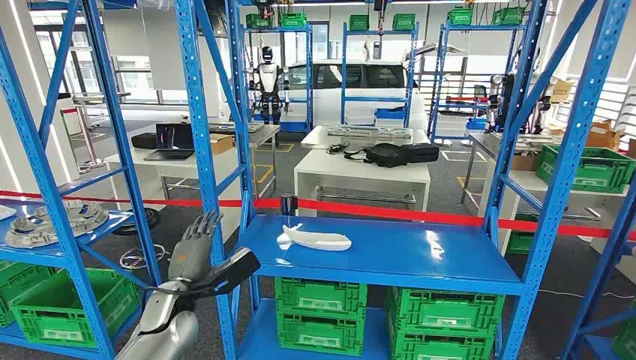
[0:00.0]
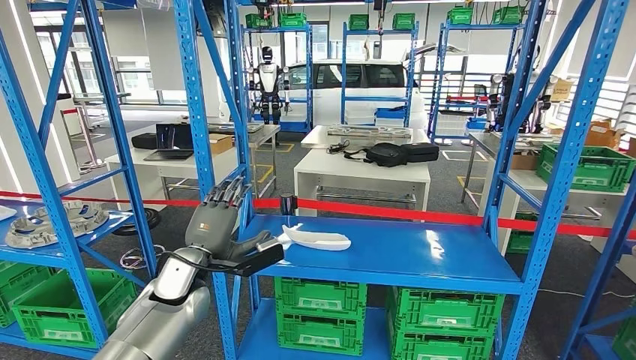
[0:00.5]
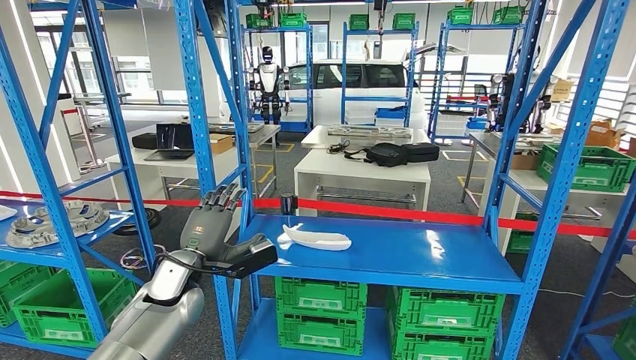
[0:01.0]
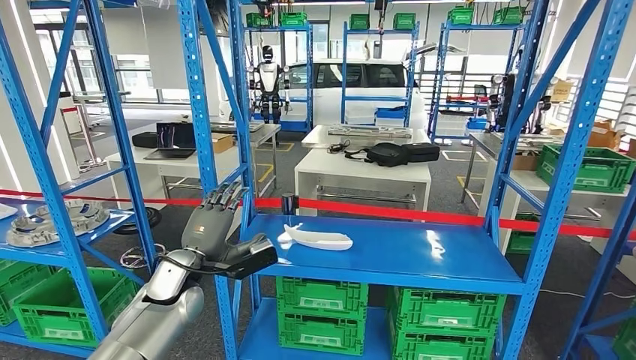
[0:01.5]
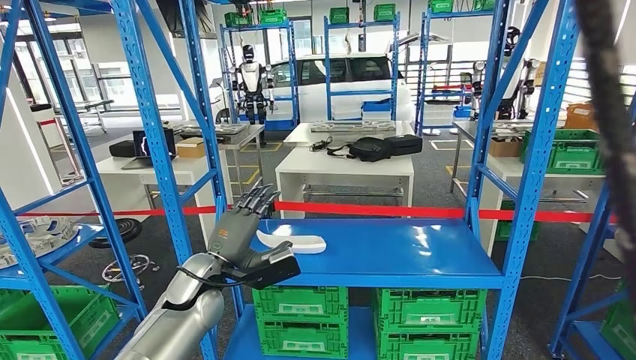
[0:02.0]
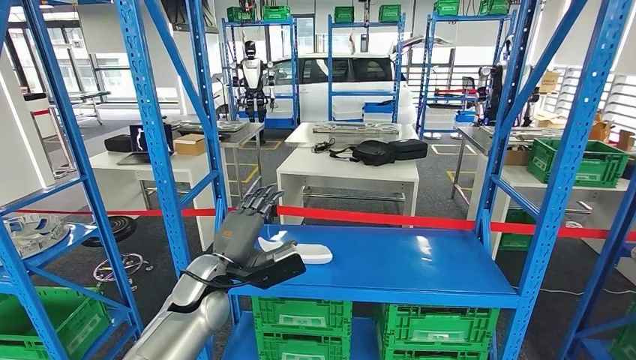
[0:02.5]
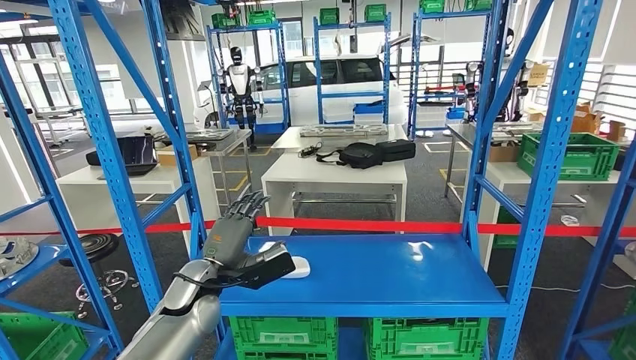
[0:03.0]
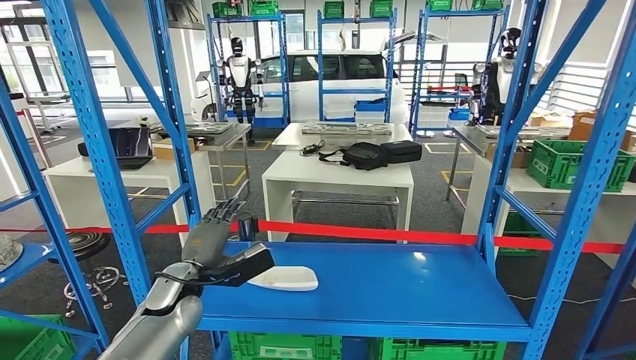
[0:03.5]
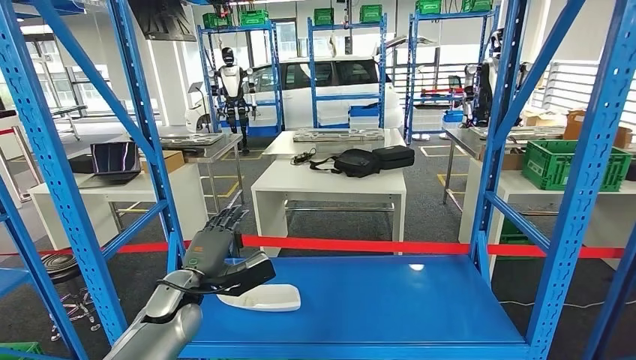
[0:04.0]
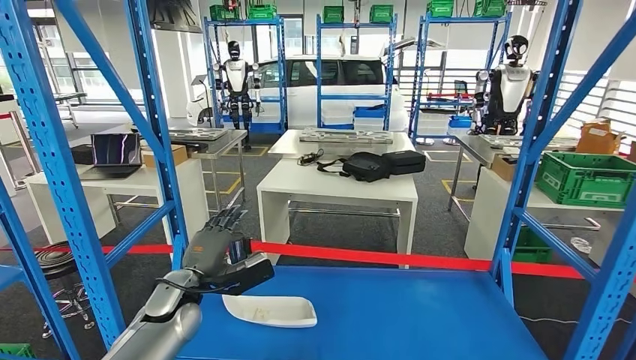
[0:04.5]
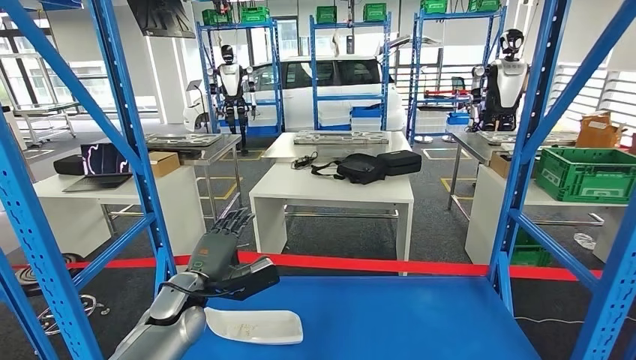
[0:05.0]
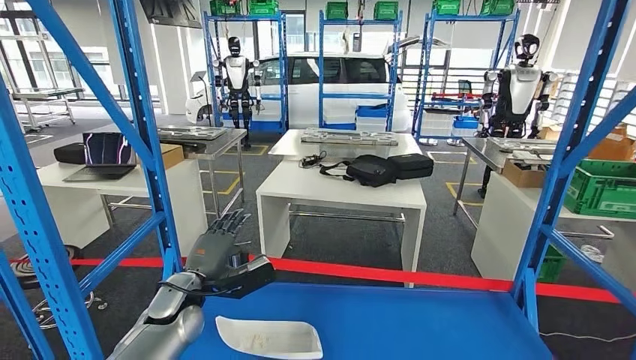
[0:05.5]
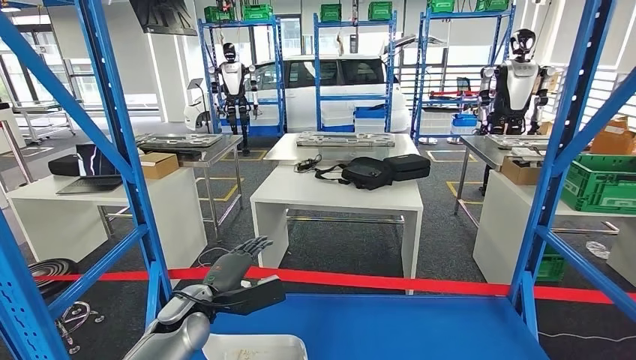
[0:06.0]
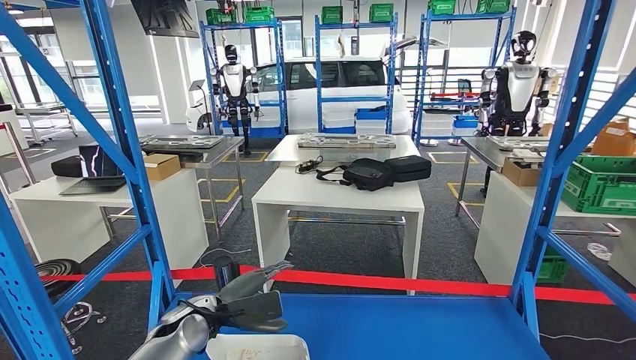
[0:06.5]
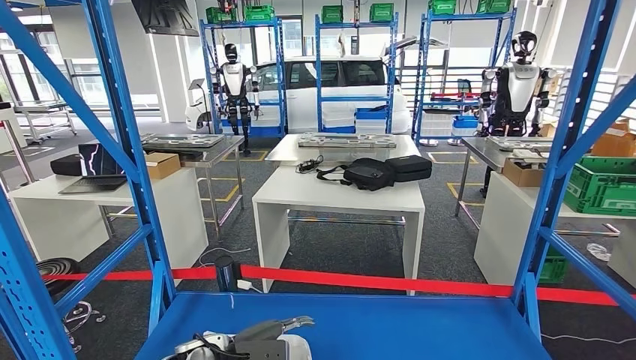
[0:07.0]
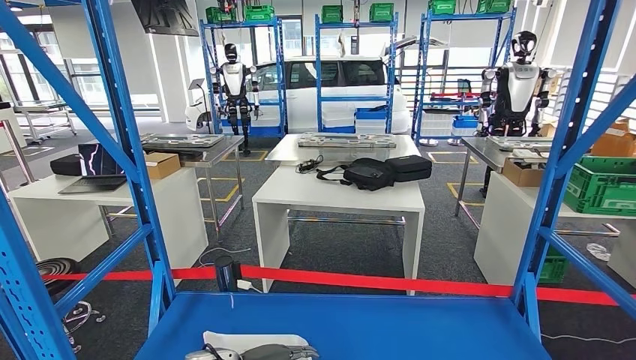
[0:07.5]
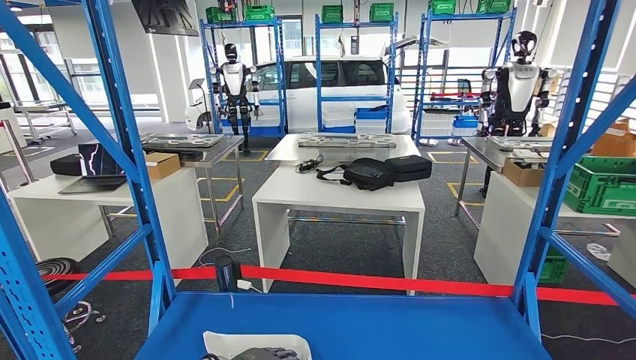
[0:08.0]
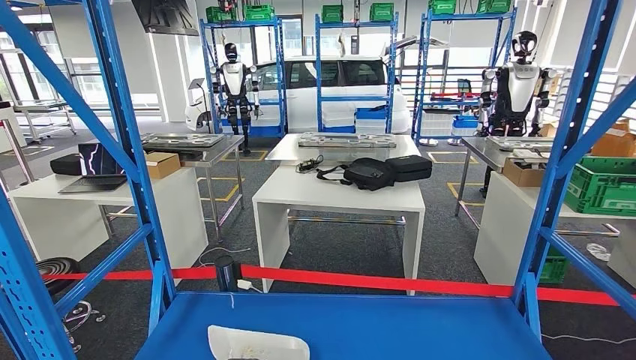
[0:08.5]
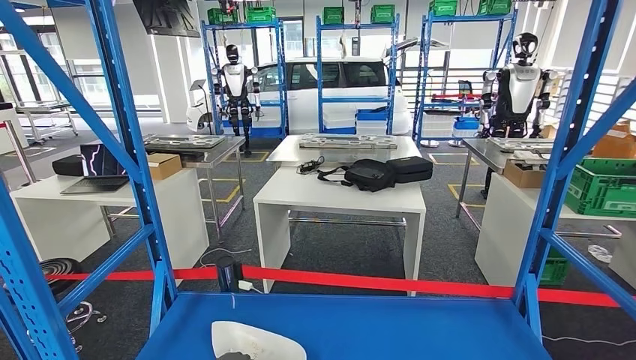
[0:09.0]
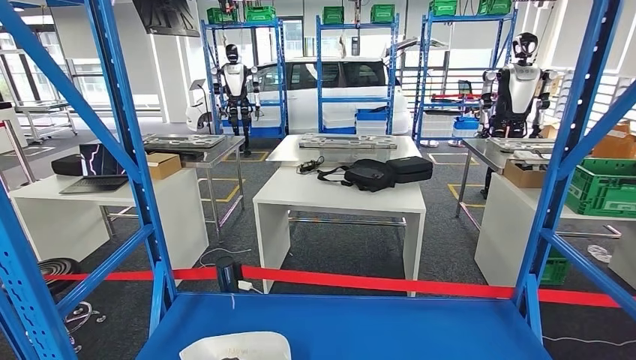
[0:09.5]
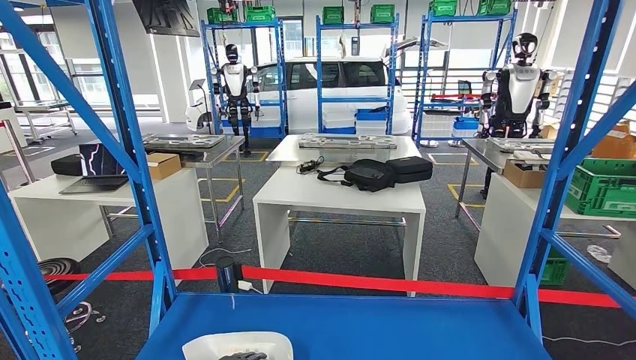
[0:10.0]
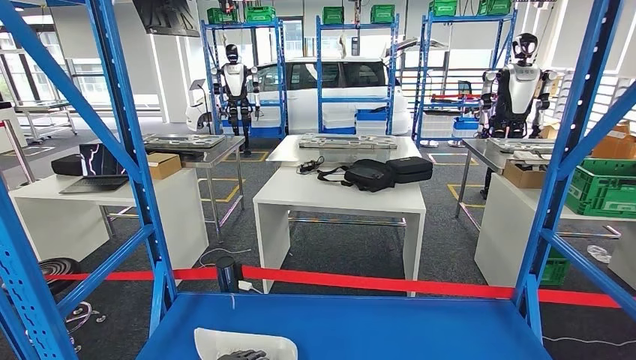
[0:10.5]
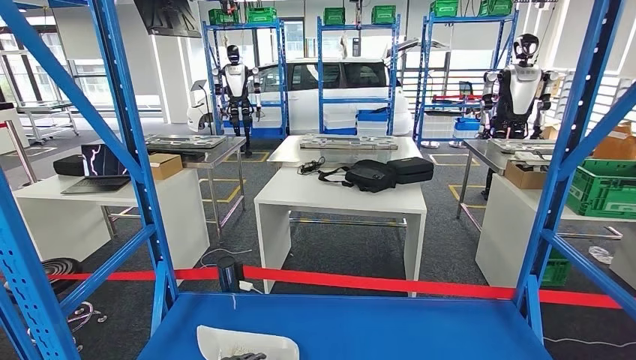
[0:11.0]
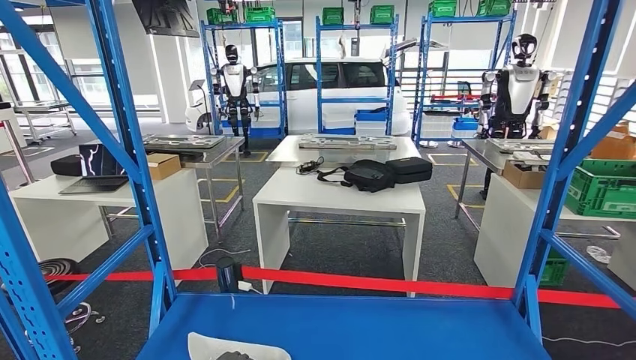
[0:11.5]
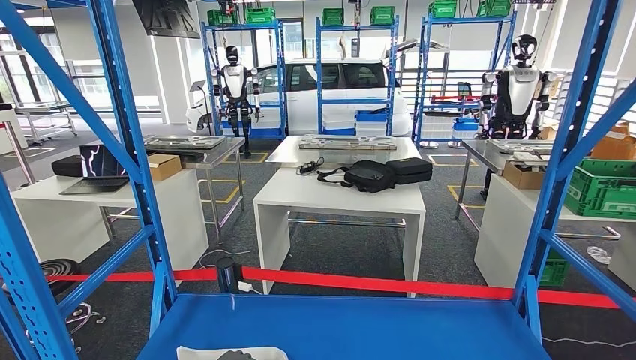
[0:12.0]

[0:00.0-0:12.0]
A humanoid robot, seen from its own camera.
0:08.0 to 0:10.0: The left hand moves about 5 cm.
0:10.0 to 0:12.0: There are only small adjustments of the hands.

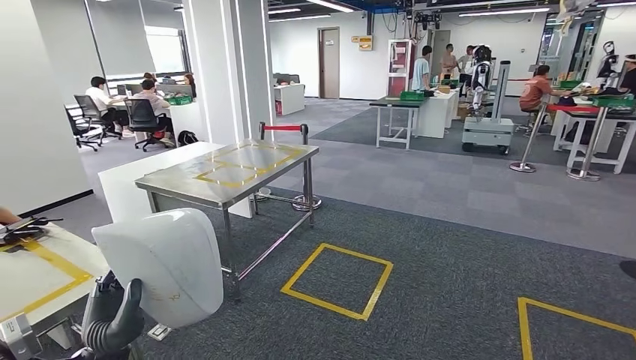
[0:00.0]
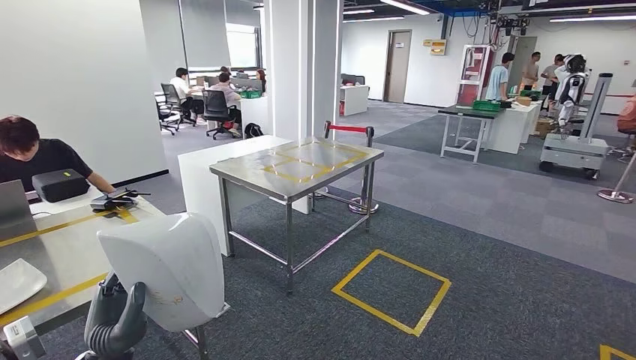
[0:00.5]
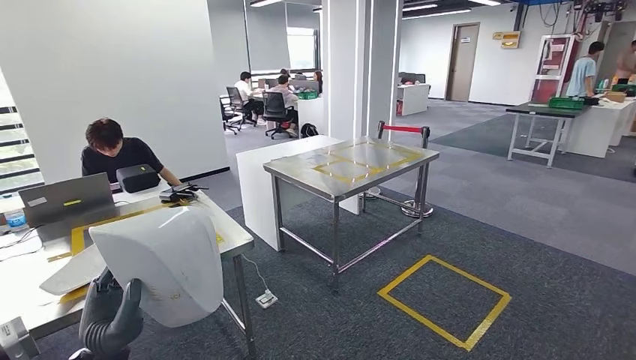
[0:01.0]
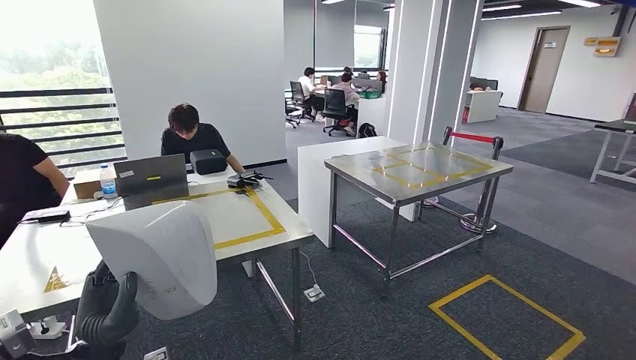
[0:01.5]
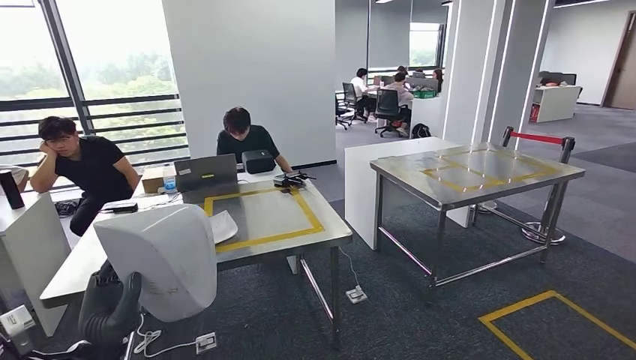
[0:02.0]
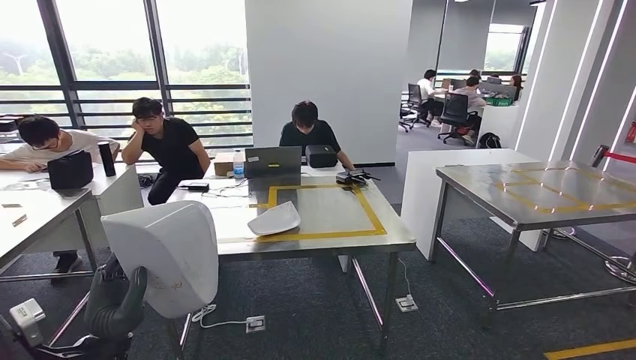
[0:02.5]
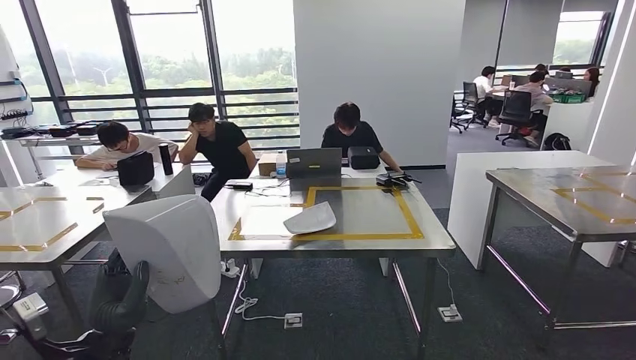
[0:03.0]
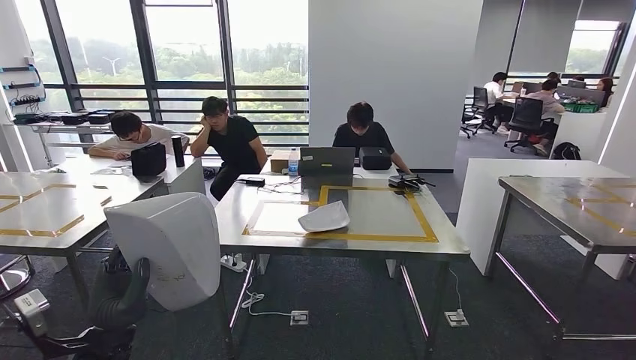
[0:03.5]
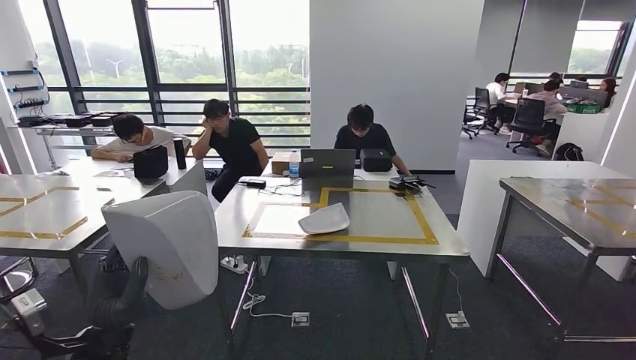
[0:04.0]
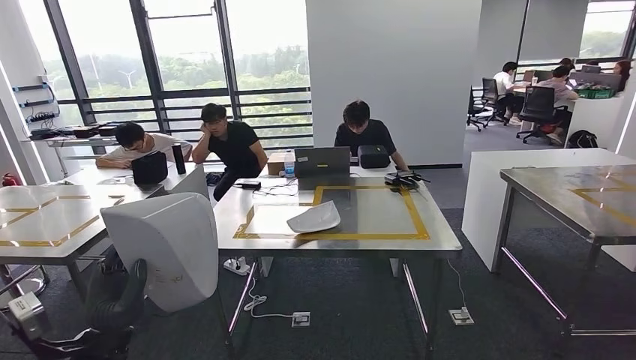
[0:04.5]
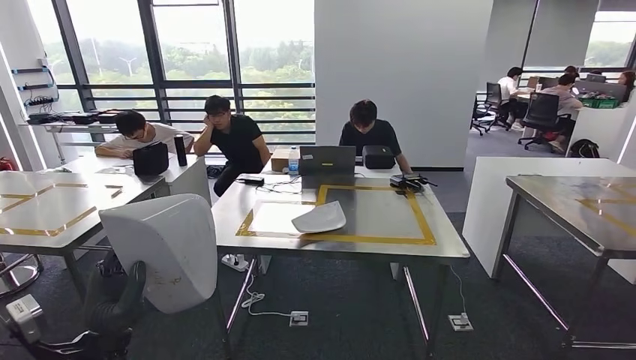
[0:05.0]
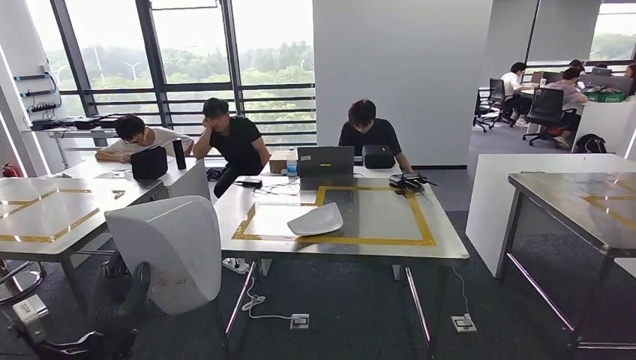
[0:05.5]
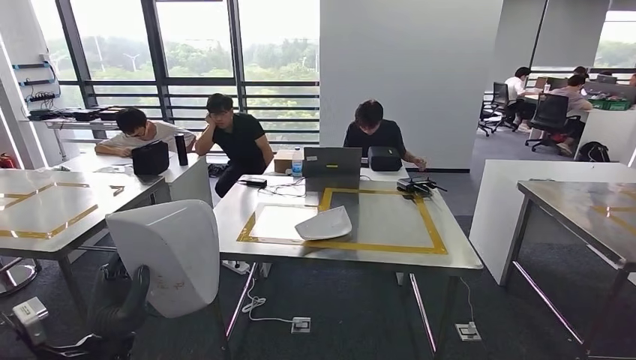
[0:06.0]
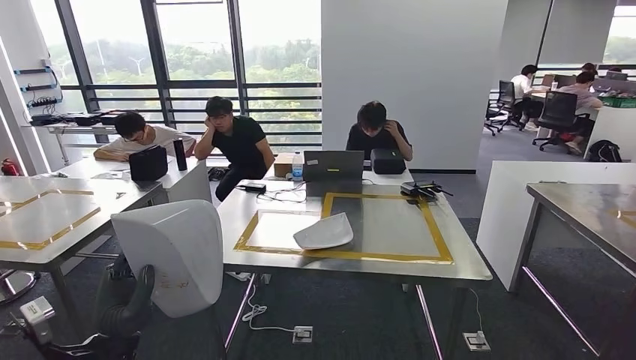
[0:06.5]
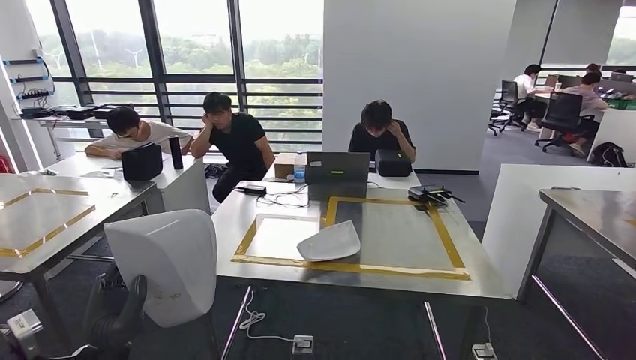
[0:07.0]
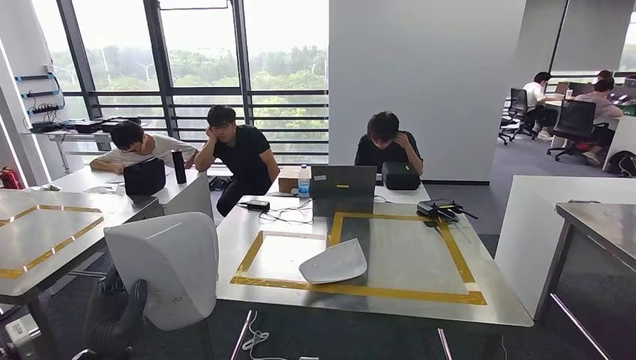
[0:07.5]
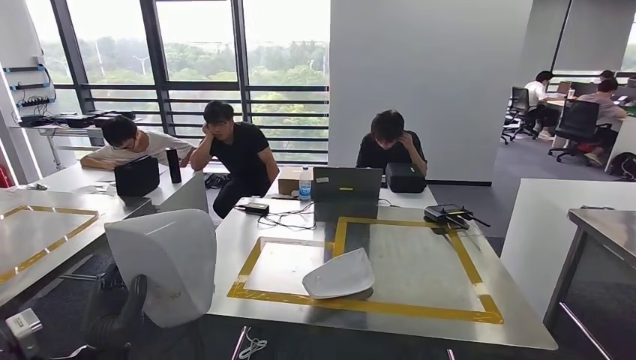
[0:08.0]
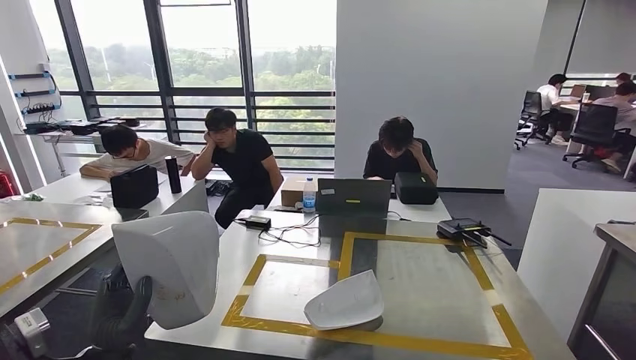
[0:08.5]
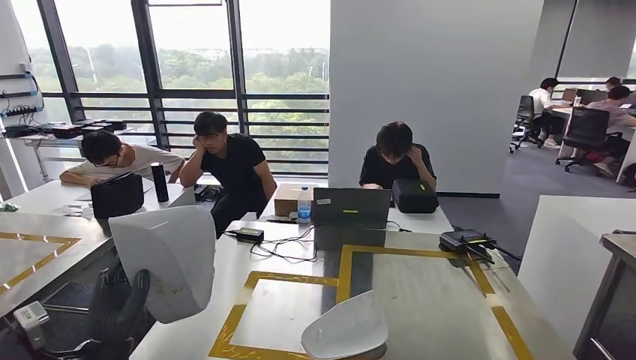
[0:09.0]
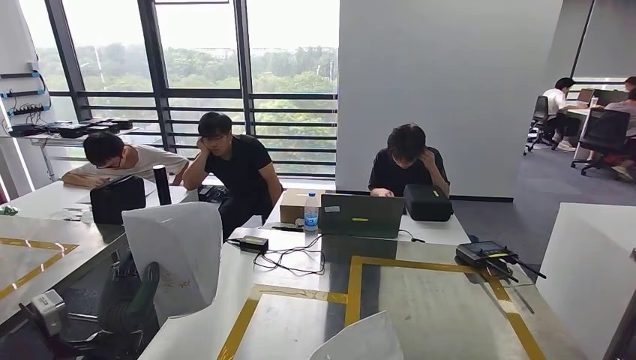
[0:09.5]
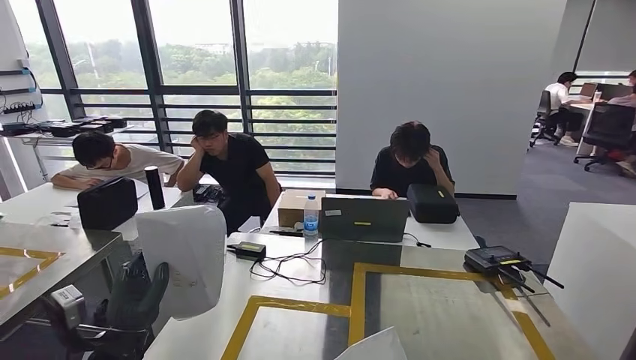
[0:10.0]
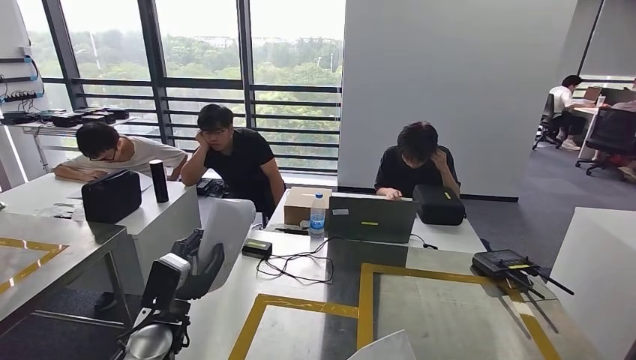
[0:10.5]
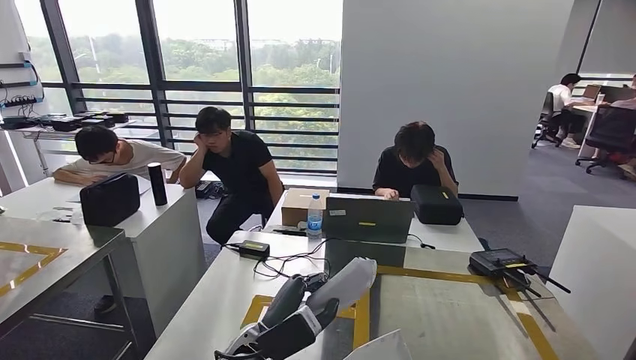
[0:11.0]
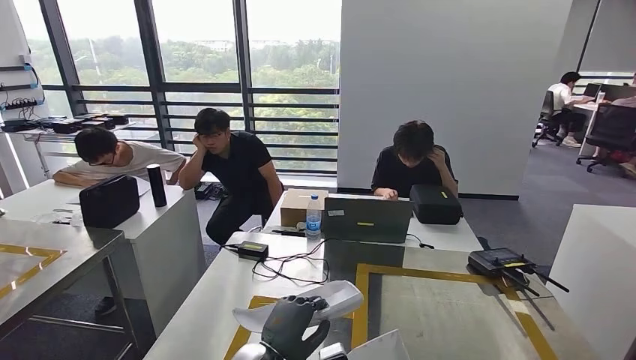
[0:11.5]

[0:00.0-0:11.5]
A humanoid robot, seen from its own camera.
Step, 0:00.0 to 0:03.0: Move the small component to the workbench.
